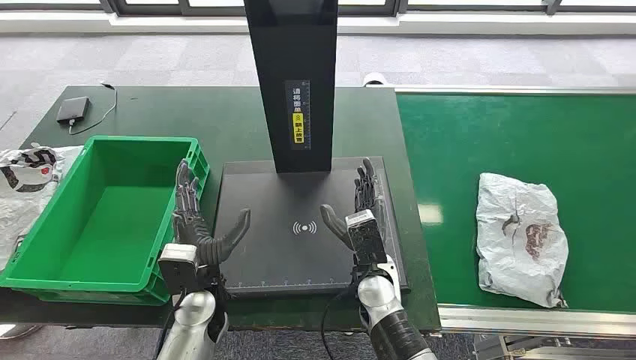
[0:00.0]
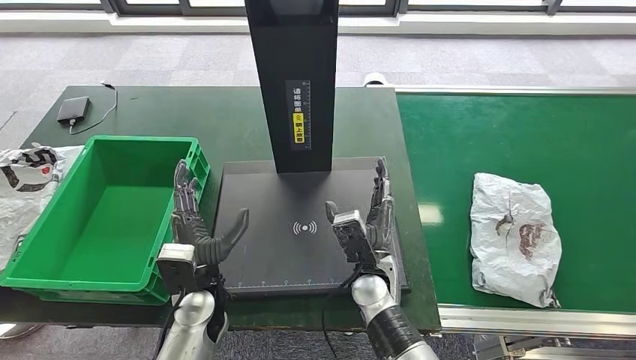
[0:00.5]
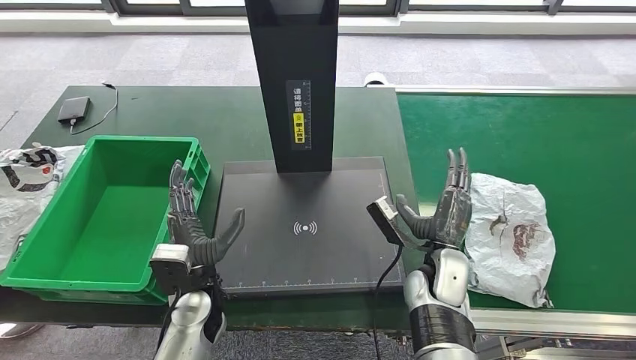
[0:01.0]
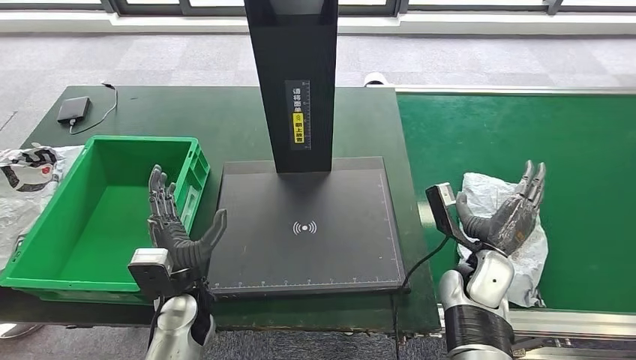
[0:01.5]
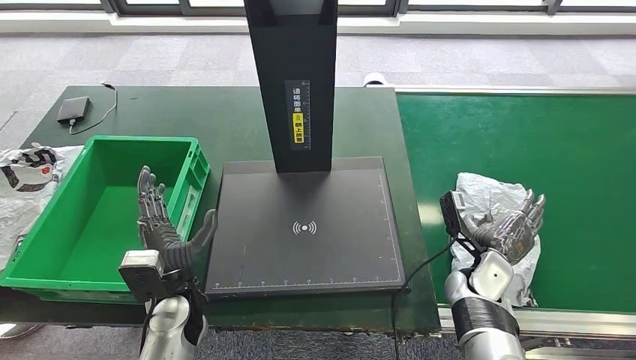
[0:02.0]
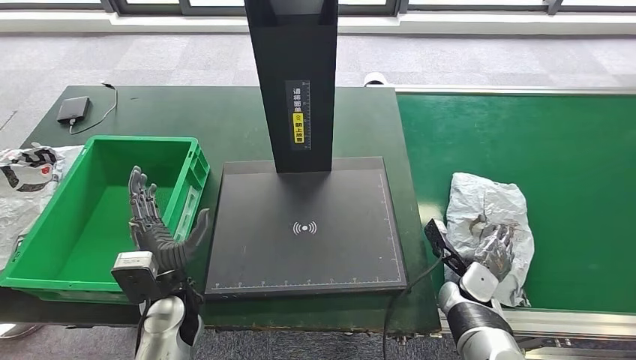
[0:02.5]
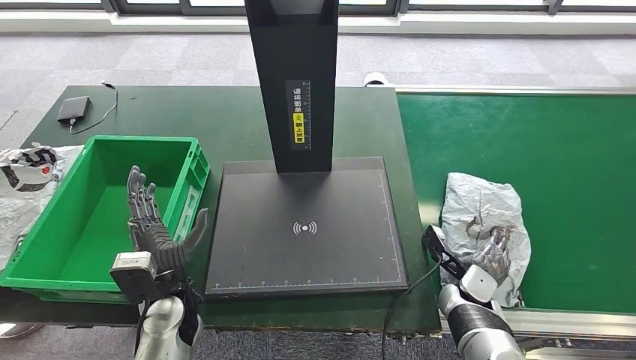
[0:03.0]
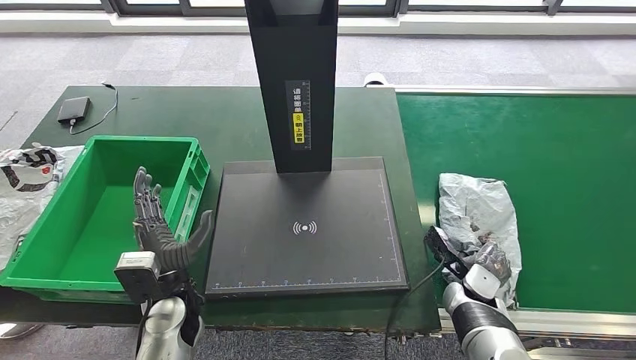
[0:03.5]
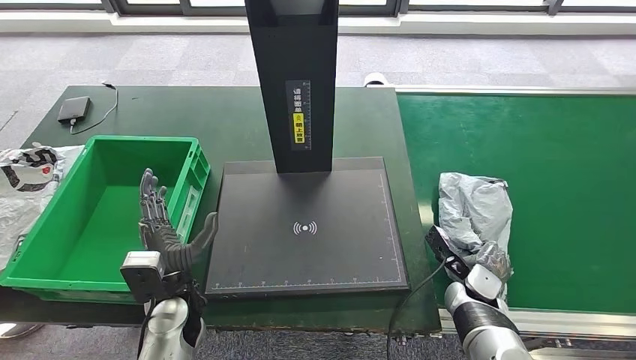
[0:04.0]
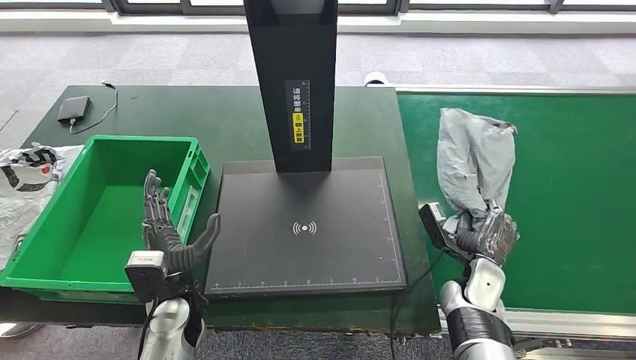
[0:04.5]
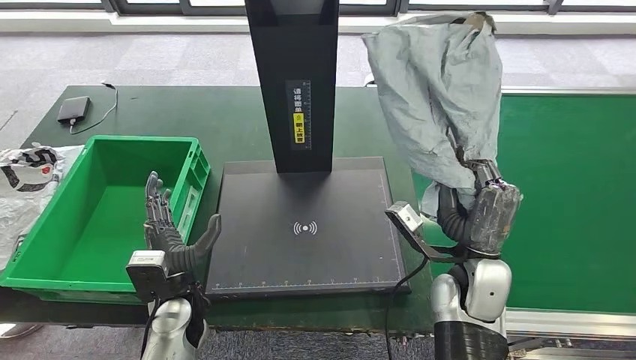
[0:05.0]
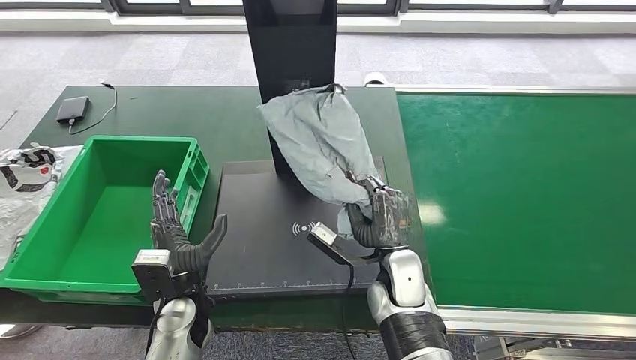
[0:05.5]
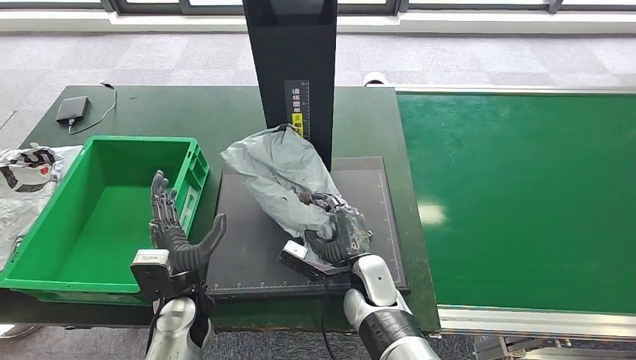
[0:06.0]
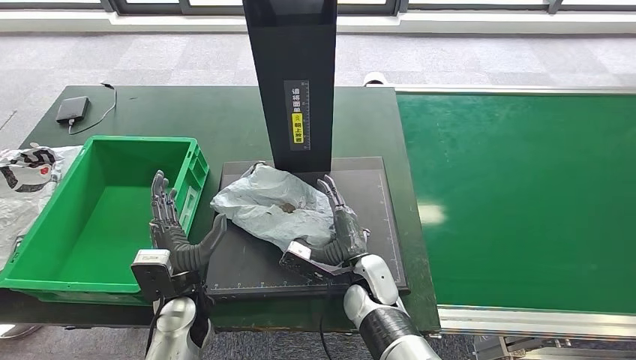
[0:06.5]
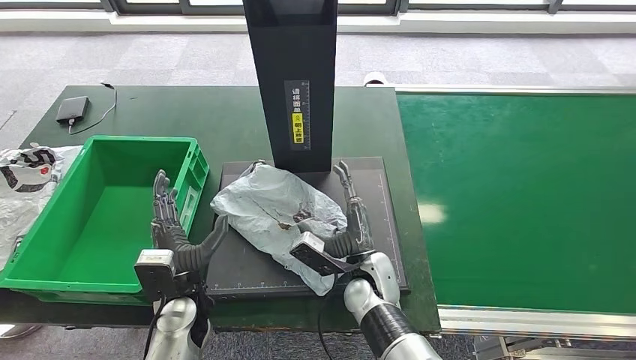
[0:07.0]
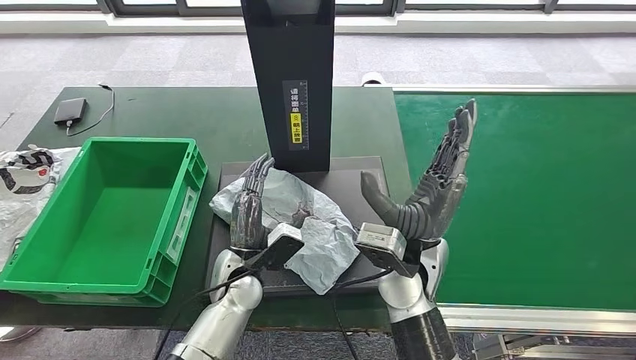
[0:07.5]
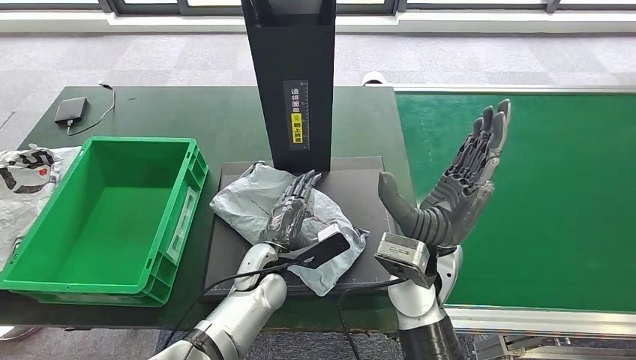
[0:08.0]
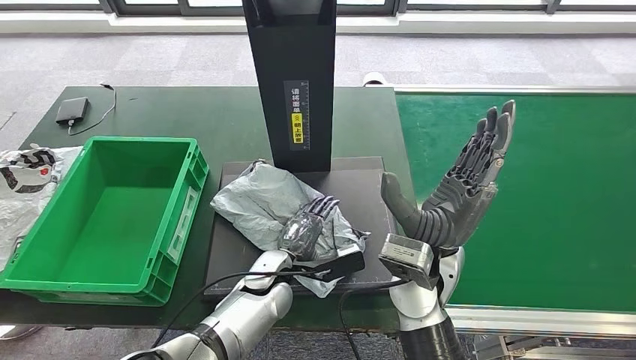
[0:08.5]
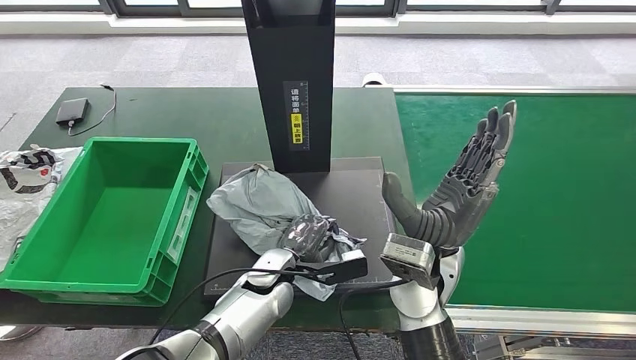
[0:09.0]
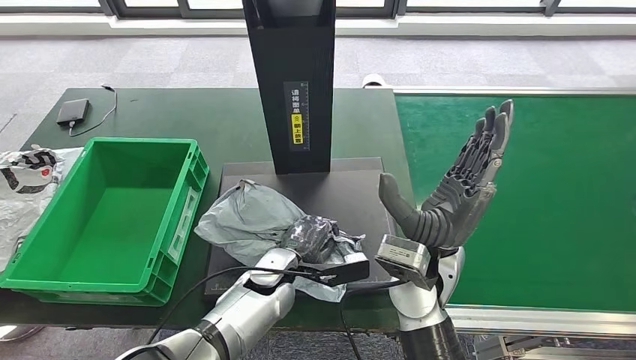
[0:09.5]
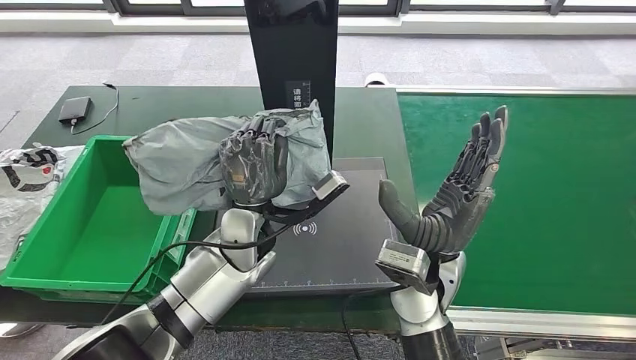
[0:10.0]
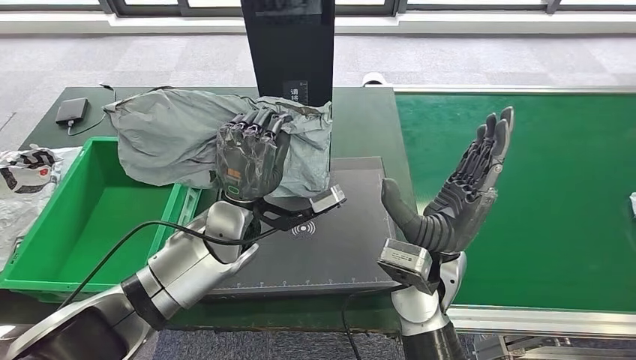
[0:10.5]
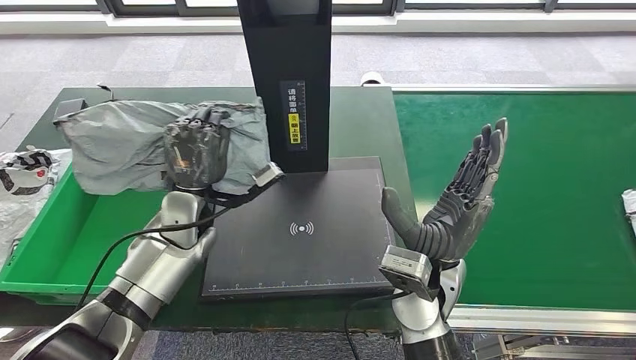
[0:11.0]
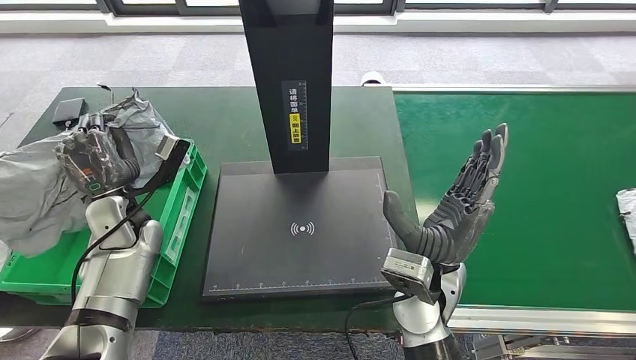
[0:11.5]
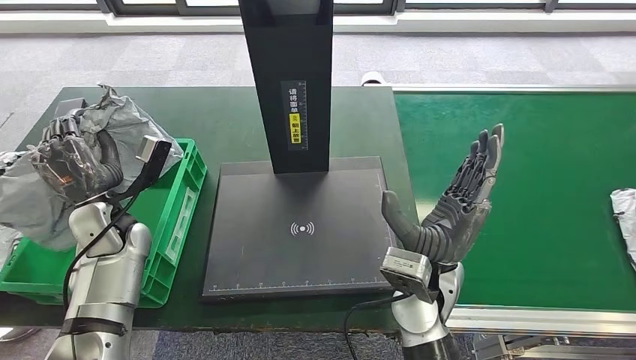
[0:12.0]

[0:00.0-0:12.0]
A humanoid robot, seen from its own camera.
Step, 0:00.0 to 0:04.5: Take the parcel off the conveyor belt.
Step, 0:05.0 to 0:08.0: Place the parcel onto the inbound machine.
Step, 0:08.5 to 0:10.0: Pick up the parcel from the inbound machine.
0:02.0 to 0:04.0: The right hand ends up approximately 5 cm from where it was.

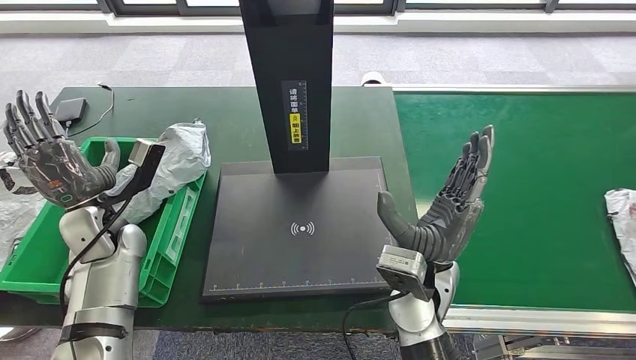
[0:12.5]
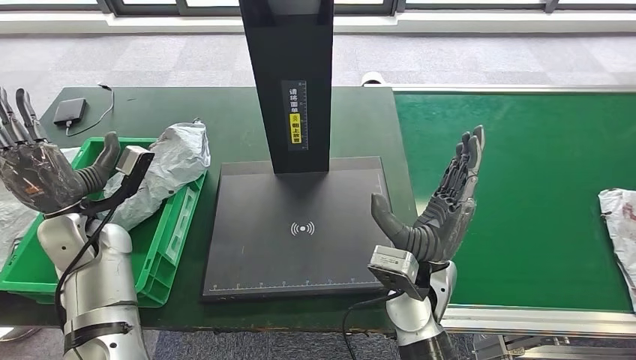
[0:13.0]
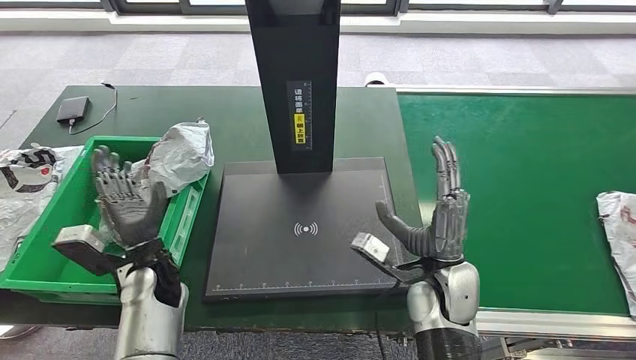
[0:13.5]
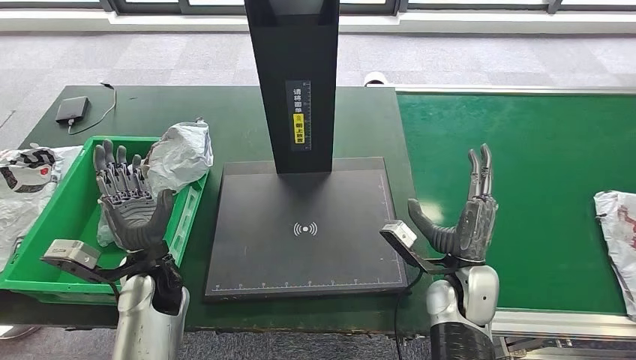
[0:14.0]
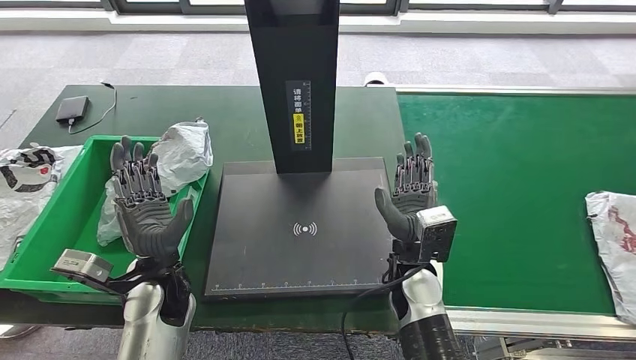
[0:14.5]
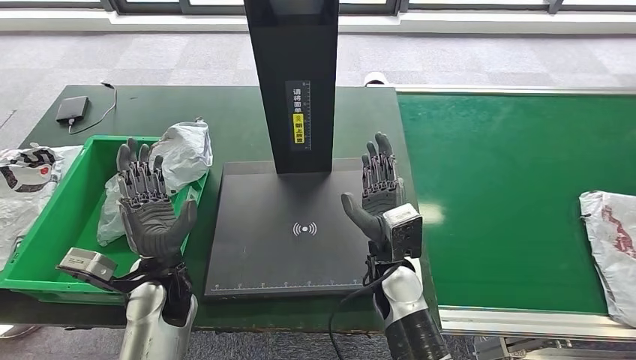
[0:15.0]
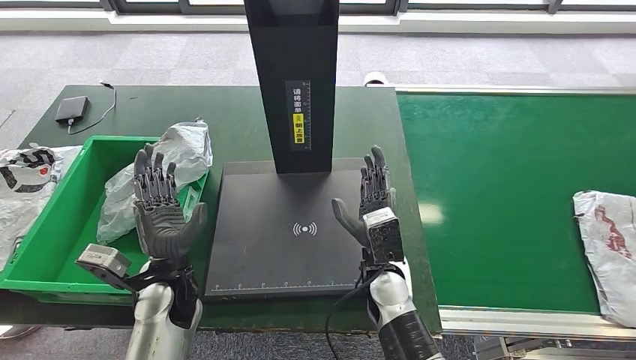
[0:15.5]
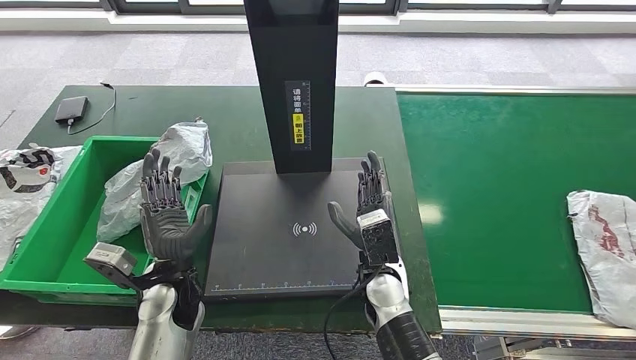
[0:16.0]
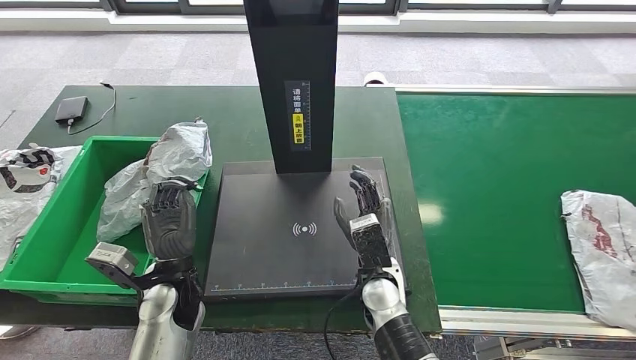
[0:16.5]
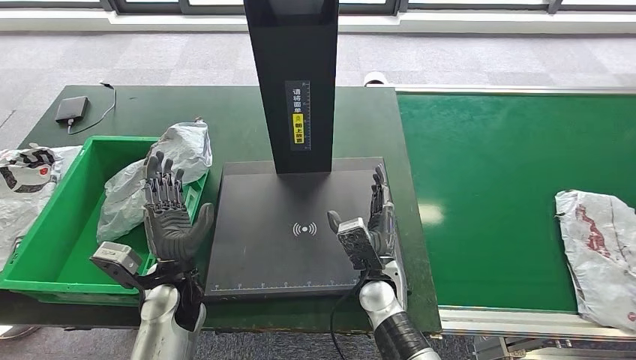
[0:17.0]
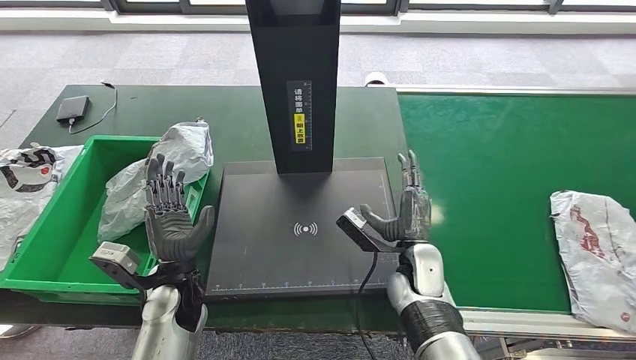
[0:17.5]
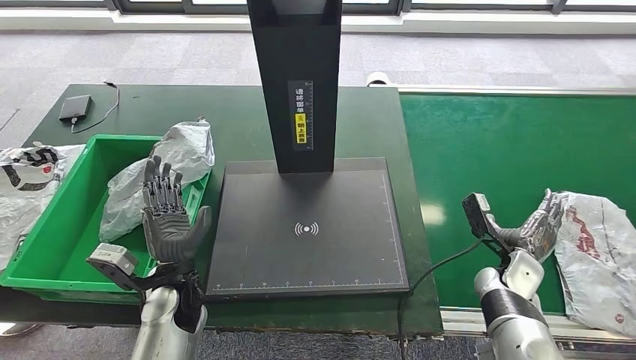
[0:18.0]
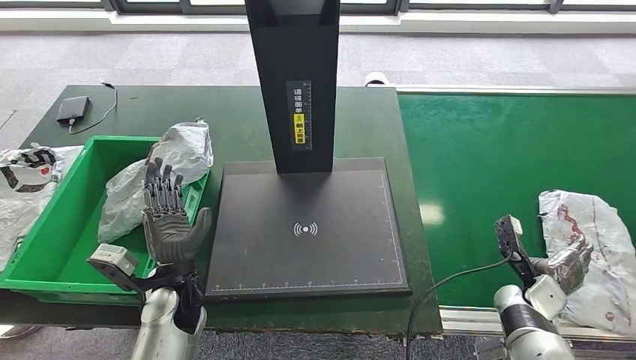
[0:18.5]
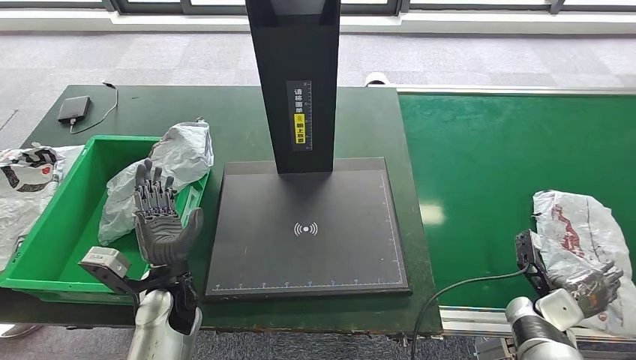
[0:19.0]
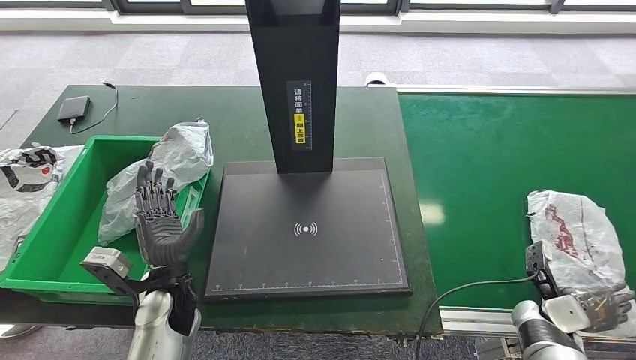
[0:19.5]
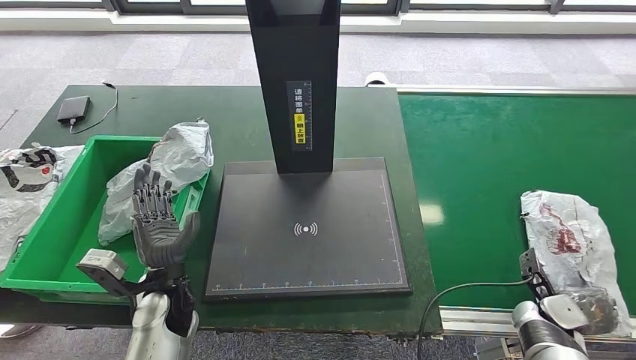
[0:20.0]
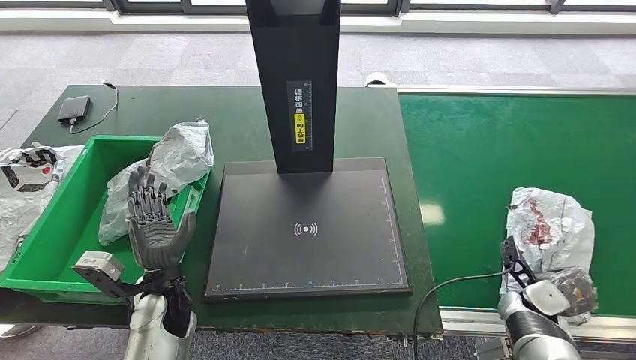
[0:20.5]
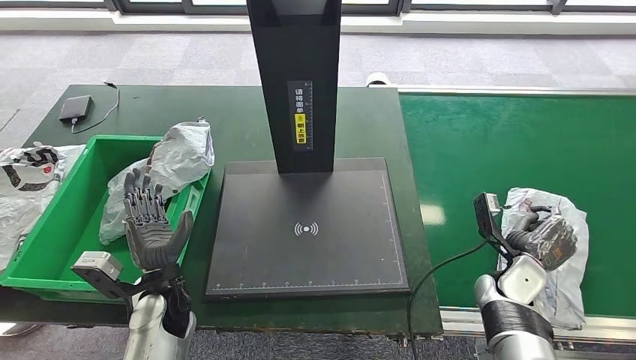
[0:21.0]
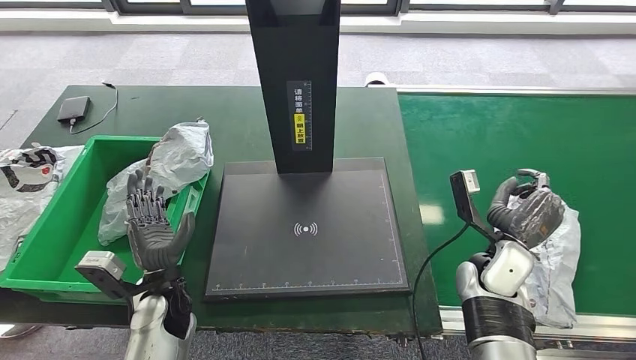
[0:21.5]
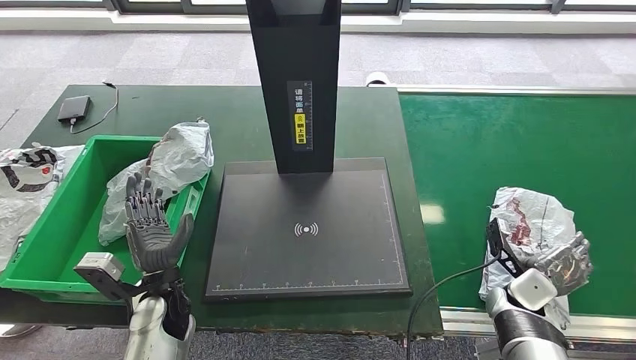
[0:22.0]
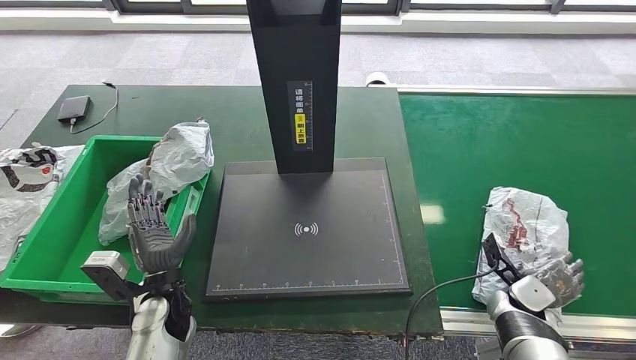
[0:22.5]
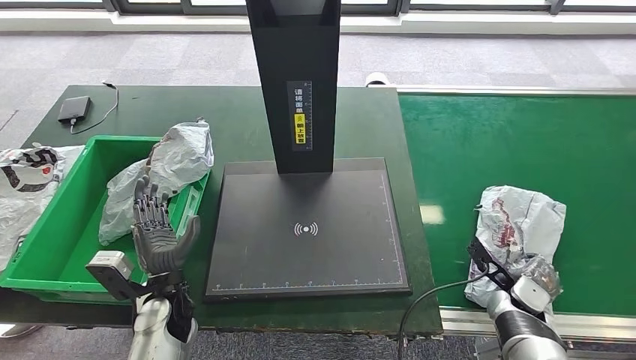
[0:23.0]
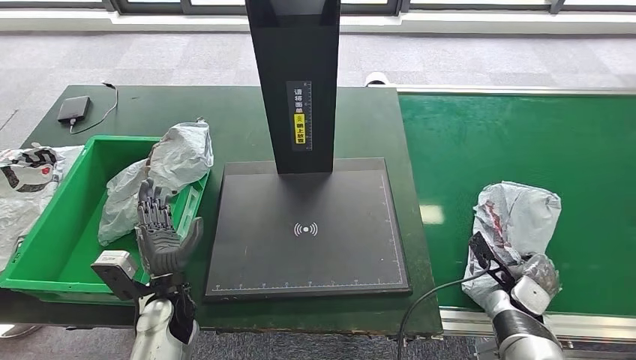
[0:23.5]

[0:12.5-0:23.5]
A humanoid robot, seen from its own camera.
0:14.5 to 0:16.0: The right hand ends up about 5 cm from where it was.
0:16.0 to 0:18.0: The right hand heads to the right, covering about 25 cm.
0:18.0 to 0:20.0: The right hand heads to the right and backward, covering approximately 10 cm.
0:20.0 to 0:21.5: The right hand moves to the left, upward and forward, some 20 cm.
0:21.5 to 0:23.5: The right hand moves downward and to the right, roughly 15 cm.
